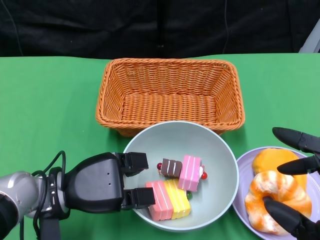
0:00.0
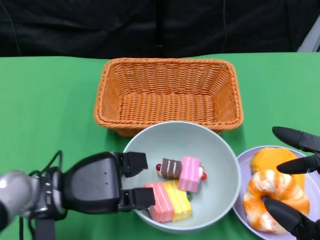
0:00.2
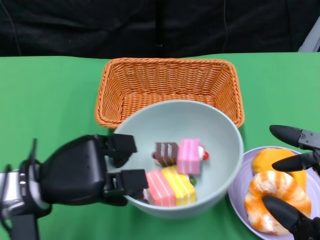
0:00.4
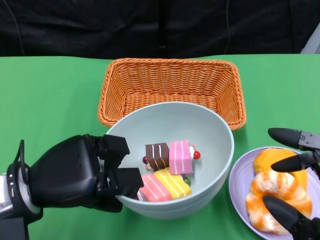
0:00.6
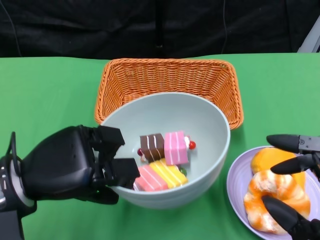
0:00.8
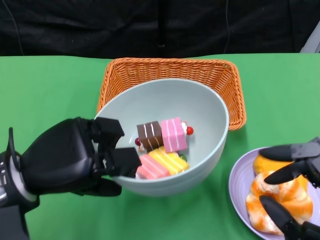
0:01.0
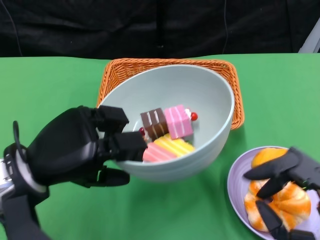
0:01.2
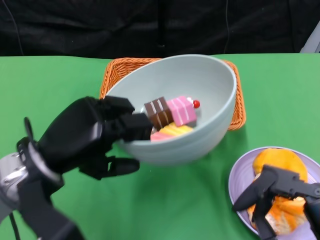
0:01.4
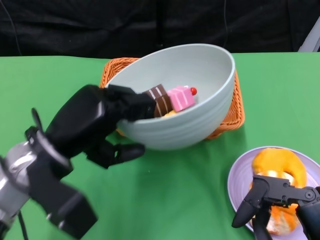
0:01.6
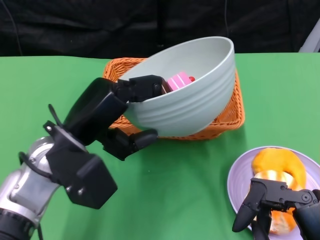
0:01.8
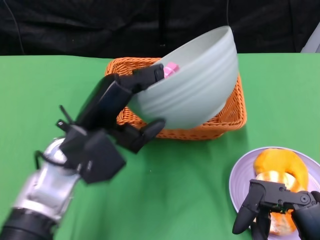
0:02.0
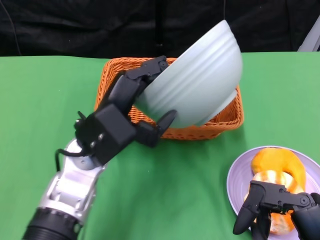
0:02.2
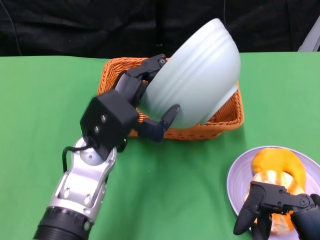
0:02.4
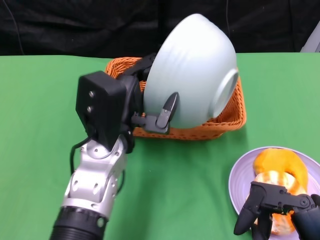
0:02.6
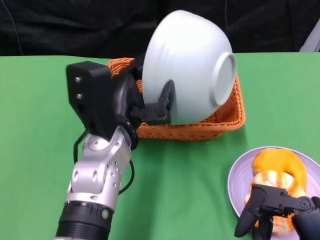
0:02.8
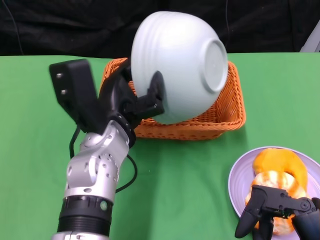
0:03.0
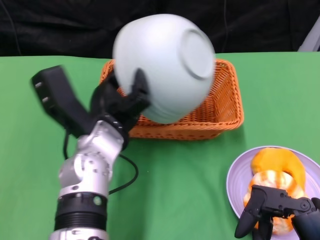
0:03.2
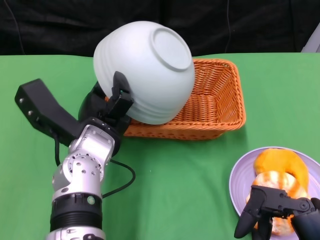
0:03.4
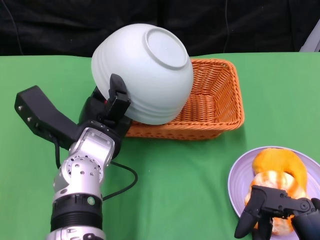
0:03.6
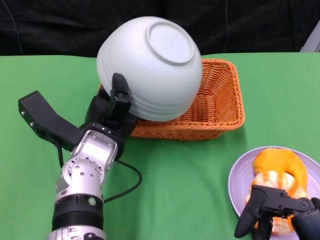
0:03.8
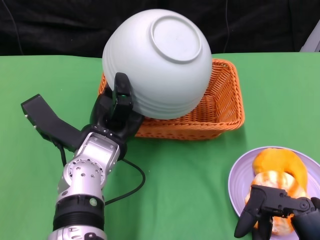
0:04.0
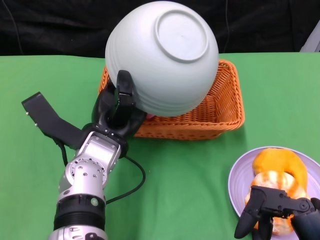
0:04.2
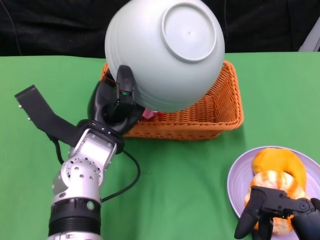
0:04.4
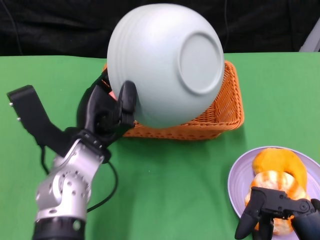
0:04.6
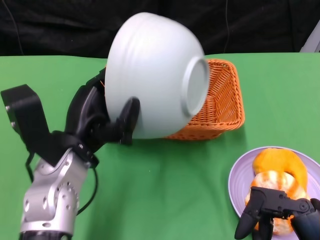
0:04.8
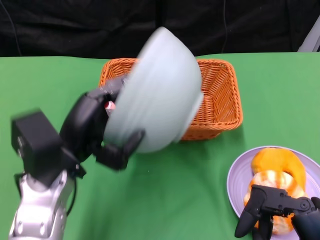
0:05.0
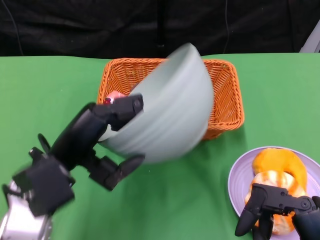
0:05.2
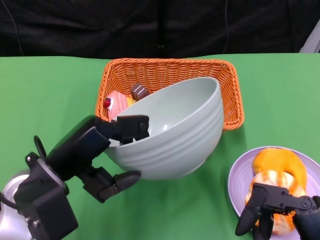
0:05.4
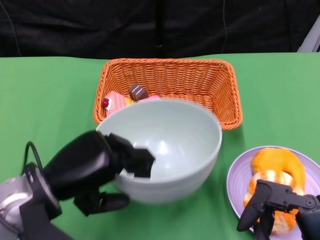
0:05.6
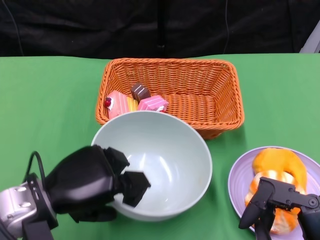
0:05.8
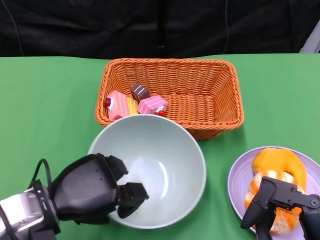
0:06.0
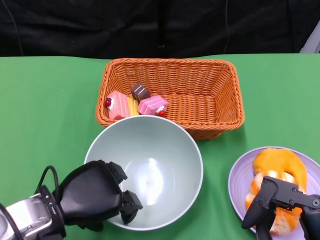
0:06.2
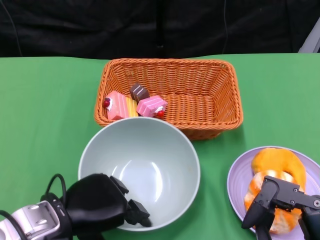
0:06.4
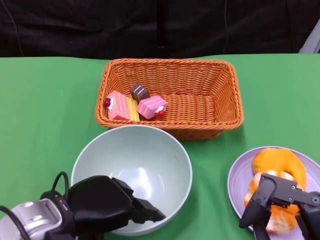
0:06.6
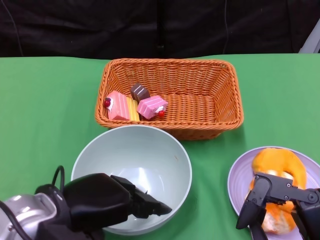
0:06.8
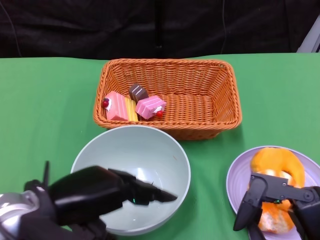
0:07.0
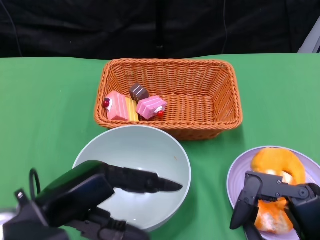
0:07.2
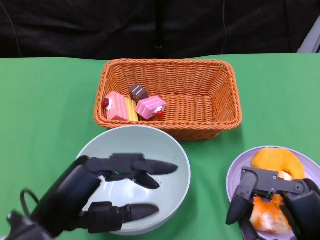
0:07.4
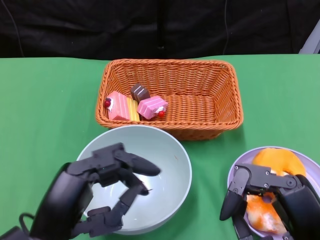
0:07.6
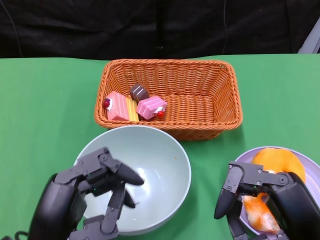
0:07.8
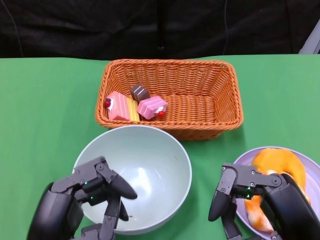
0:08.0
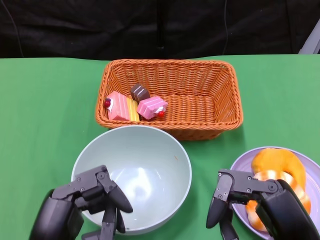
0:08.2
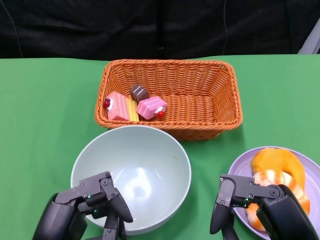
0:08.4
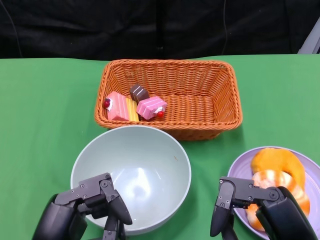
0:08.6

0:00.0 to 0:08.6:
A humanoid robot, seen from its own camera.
Step, 0:00.0 to 0:04.4: Pour the cake into the basket with the left gripper.
Step, 0:04.8 to 0:07.0: Place the bowl on the table with the left gripper.
0:00.0 to 0:01.4: The left hand shifts some 10 cm upward.
0:01.4 to 0:02.8: The left hand moves to the right, some 10 cm.
0:04.4 to 0:05.8: The left hand shifts about 10 cm to the left and backward.
0:05.8 to 0:07.2: The left hand changes place by some 5 cm.
0:07.2 to 0:08.6: The left hand shifts some 5 cm backward.

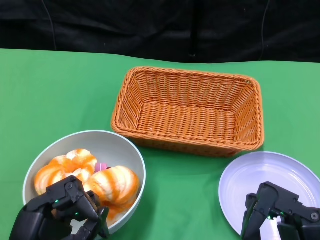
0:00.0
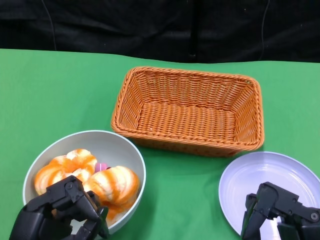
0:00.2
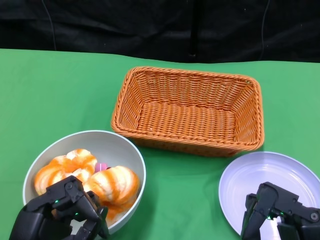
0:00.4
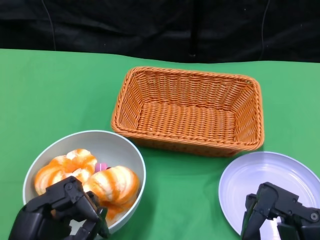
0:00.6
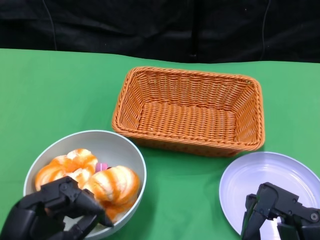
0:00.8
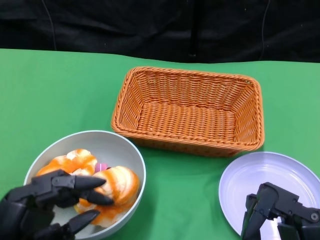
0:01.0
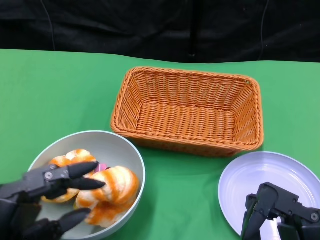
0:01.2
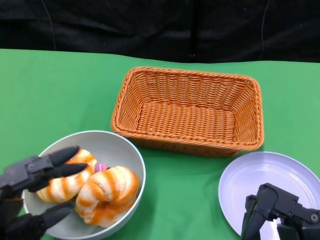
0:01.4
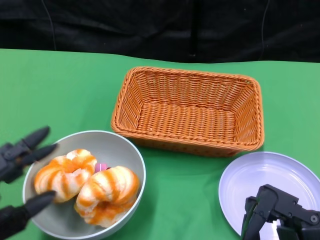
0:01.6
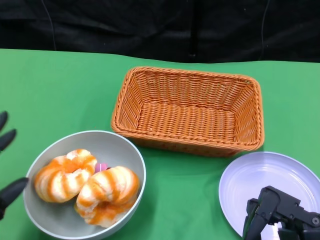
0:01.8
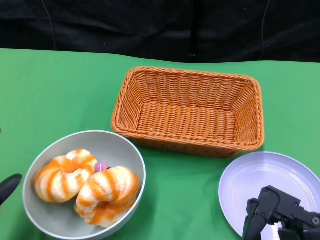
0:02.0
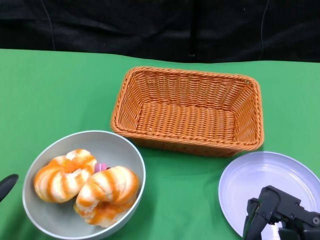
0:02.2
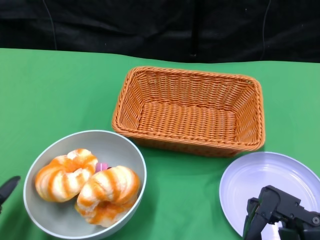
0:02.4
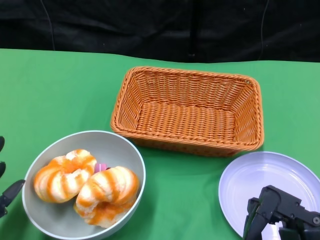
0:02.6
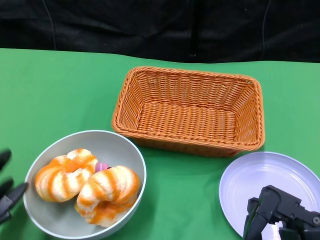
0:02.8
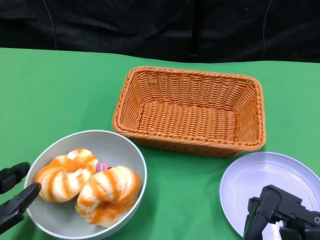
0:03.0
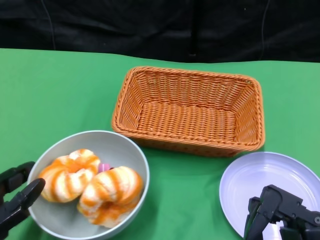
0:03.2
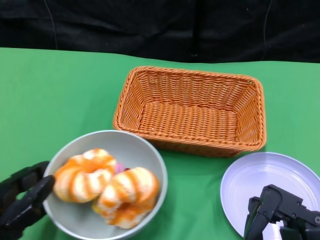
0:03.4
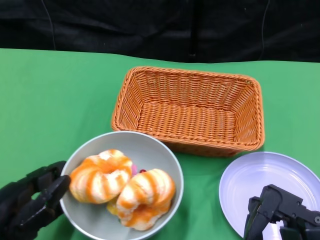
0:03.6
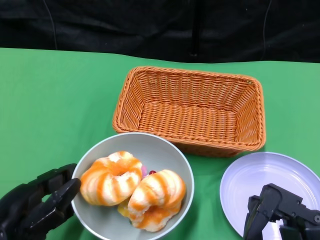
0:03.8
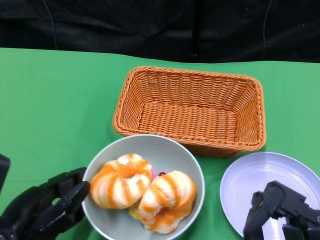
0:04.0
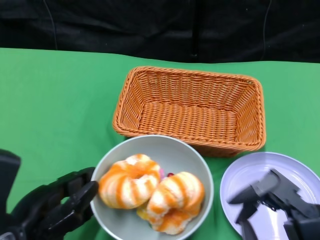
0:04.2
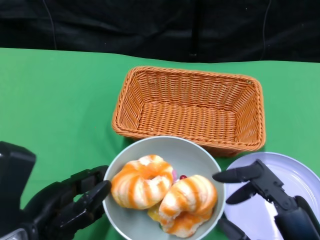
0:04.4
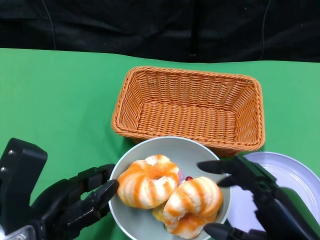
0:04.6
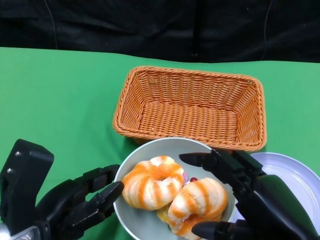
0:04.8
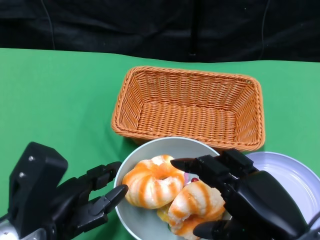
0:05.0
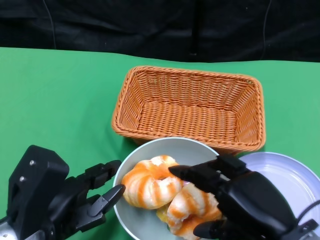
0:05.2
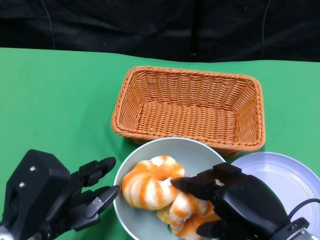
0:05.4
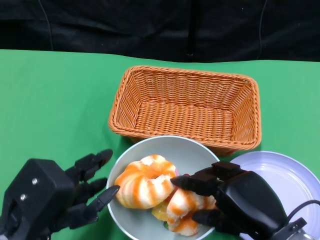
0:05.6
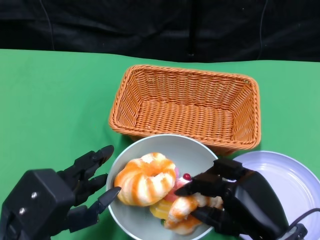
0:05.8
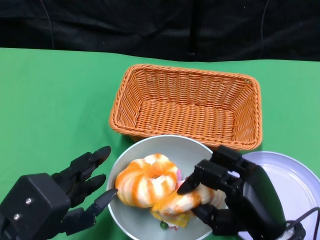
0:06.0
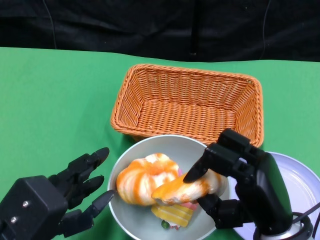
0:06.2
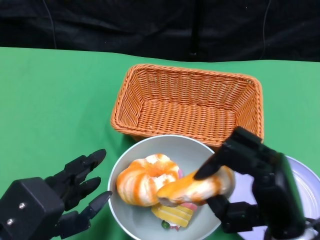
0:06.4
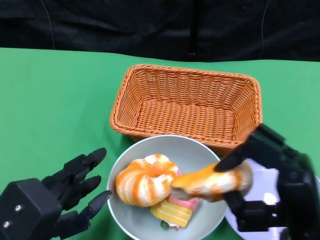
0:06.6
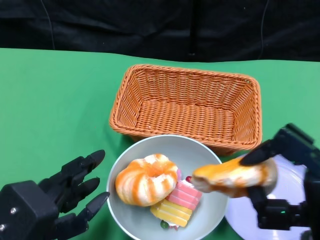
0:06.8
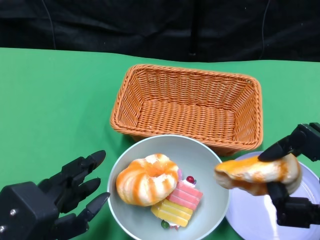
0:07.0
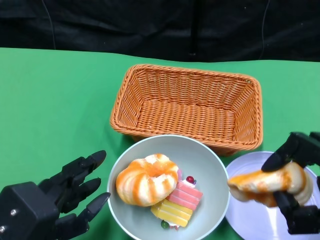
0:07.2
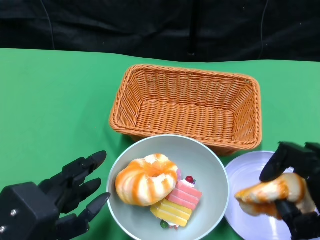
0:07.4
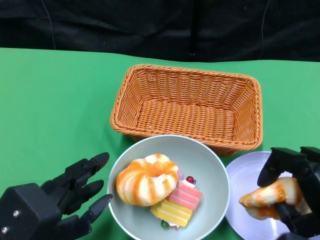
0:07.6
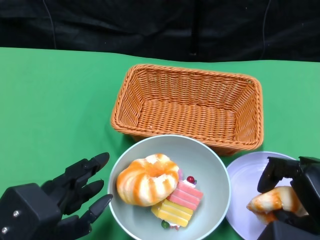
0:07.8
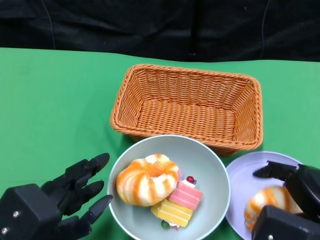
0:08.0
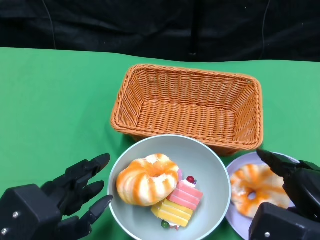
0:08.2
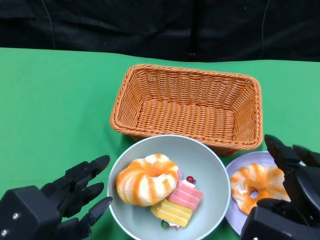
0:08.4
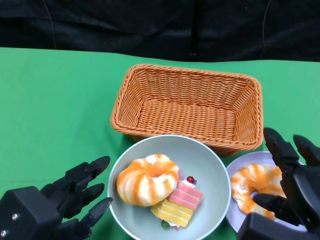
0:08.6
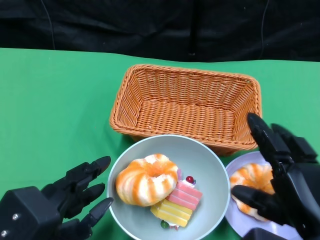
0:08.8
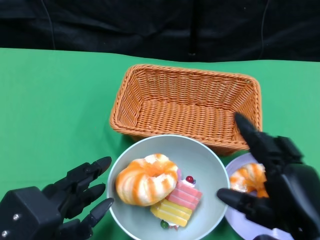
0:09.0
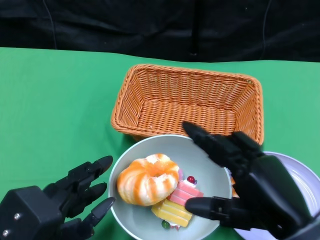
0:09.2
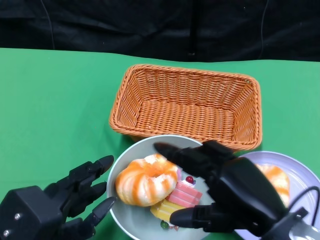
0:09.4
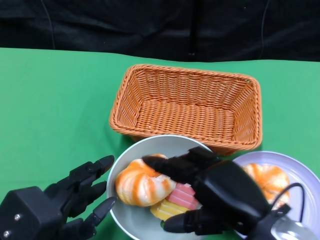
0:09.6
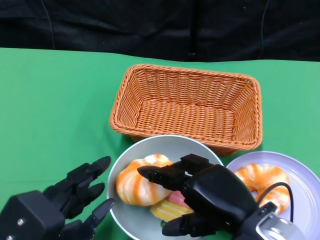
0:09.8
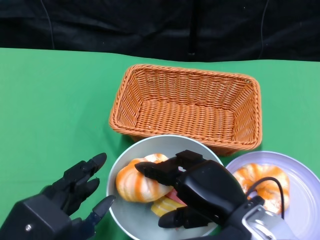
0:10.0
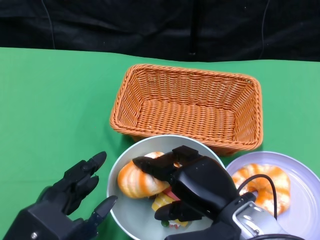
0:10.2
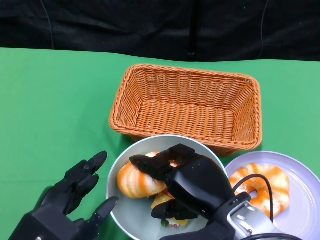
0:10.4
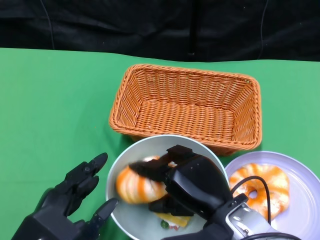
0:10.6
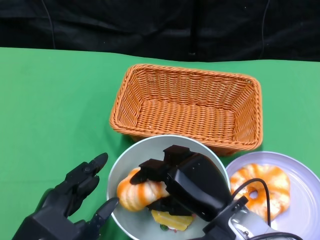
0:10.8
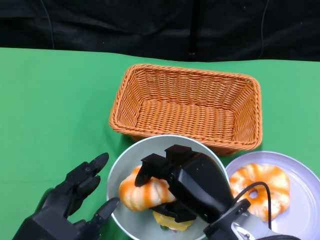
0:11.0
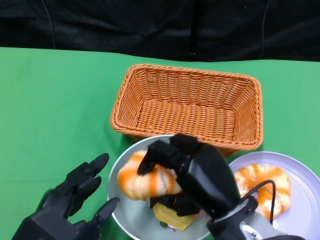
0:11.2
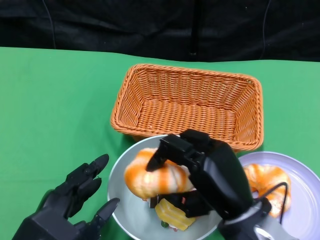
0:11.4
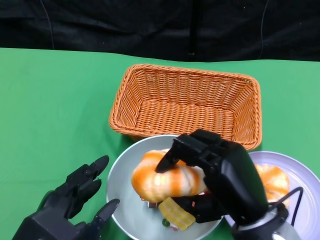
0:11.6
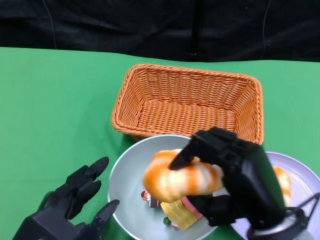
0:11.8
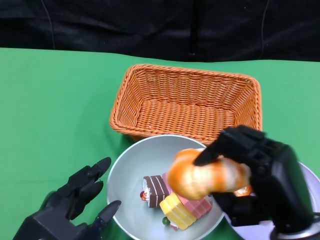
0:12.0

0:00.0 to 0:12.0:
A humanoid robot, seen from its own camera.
Step, 0:00.0 to 0:04.8: Push the bowl to the center of the table using the left gripper.
0:03.0 to 0:04.4: The left hand shifts approximately 10 cm to the right.
0:04.4 to 0:06.0: The right hand heads forward and downward, covering about 10 cm.
0:06.0 to 0:07.6: The right hand heads to the right and upward, covering roughly 10 cm.
0:09.0 to 0:10.4: The right hand is displaced to the left and forward by roughly 10 cm.
0:10.4 to 0:12.0: The right hand is displaced to the right by roughly 5 cm.

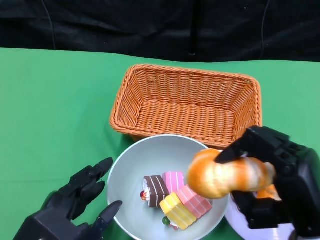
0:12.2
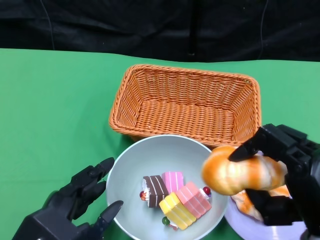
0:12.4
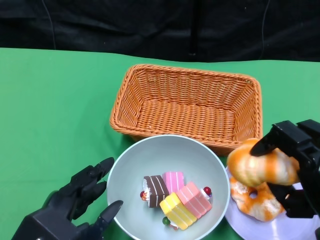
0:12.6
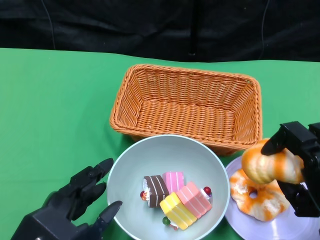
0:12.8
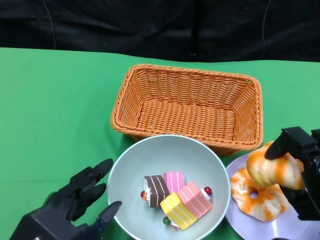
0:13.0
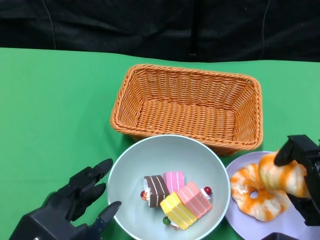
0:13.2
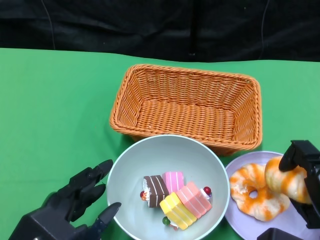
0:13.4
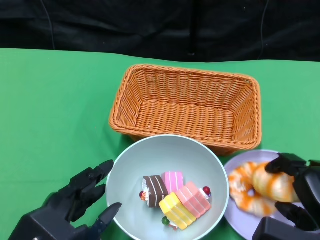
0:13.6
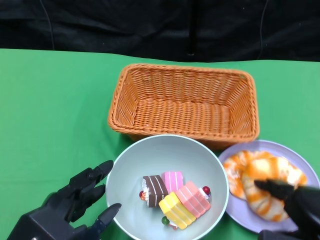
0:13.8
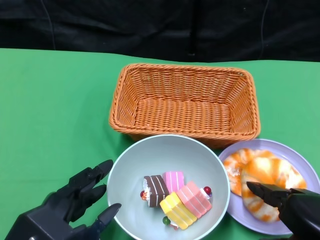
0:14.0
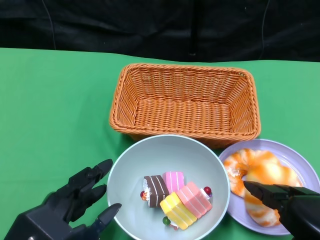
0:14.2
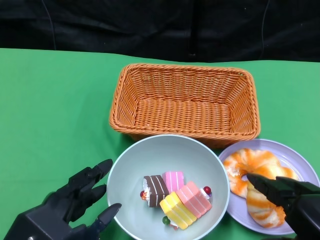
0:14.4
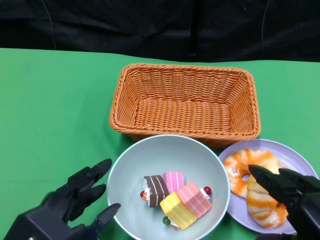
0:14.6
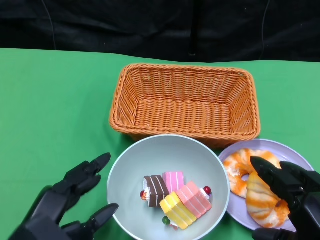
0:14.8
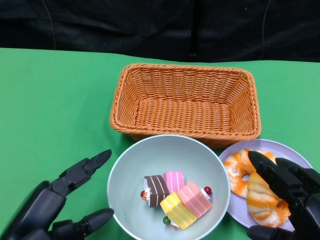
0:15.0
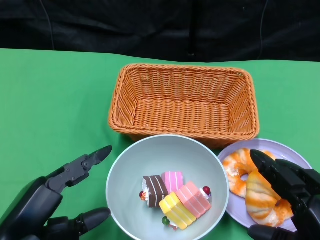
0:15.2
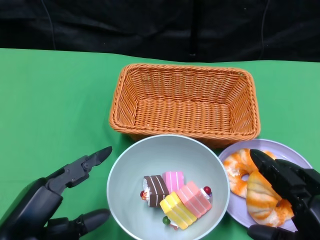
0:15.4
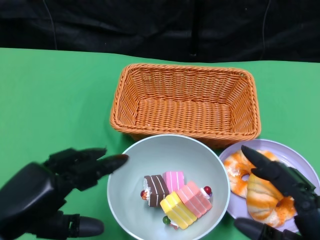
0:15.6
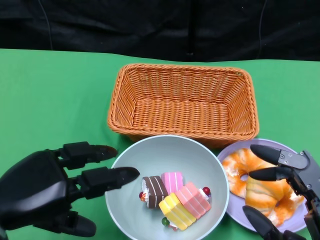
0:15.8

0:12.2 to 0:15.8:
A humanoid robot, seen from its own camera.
Step, 0:12.2 to 0:14.4: Pick up the bread with the right gripper and place it on the plate.
0:14.0 to 0:15.8: The left hand shifts approximately 10 cm to the left and forward.
